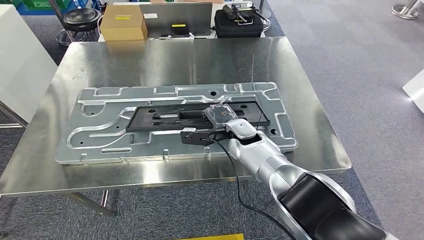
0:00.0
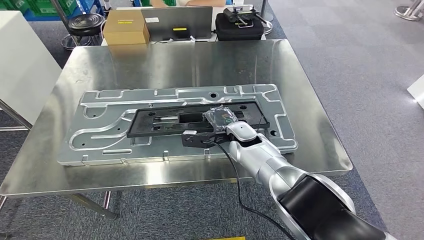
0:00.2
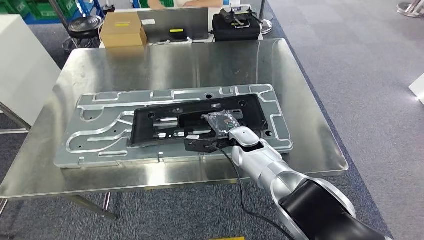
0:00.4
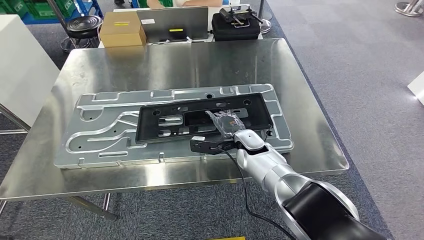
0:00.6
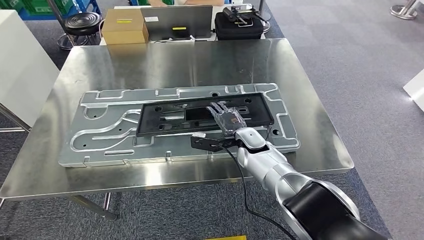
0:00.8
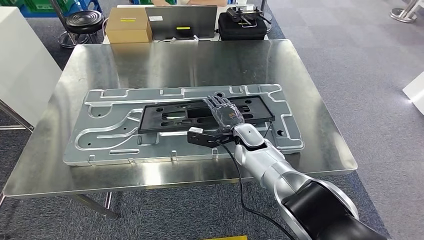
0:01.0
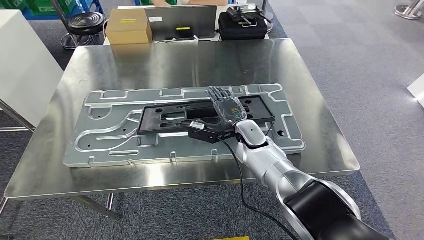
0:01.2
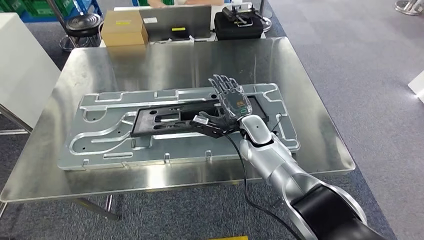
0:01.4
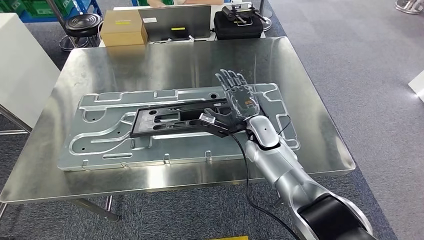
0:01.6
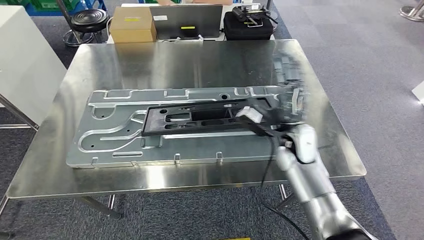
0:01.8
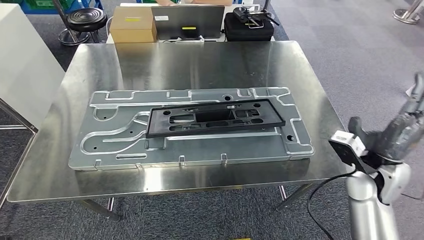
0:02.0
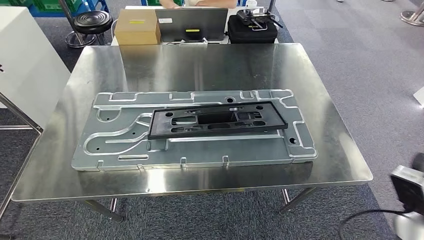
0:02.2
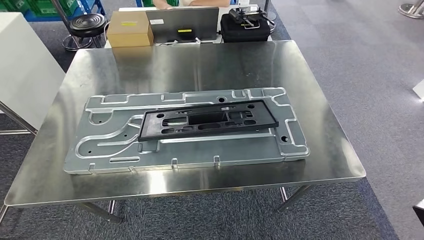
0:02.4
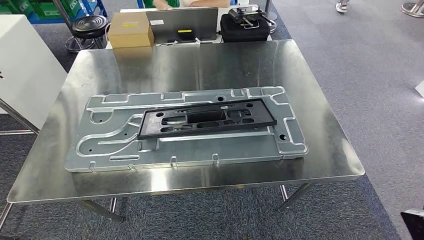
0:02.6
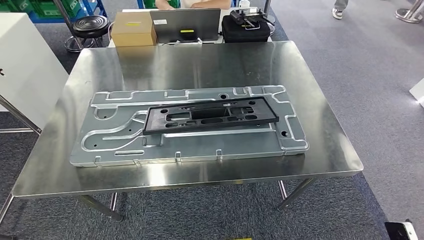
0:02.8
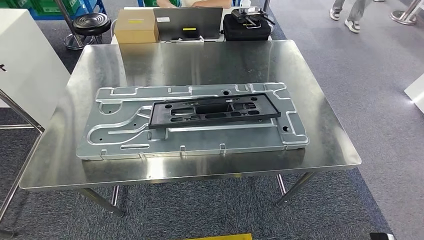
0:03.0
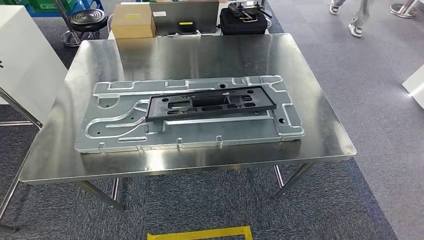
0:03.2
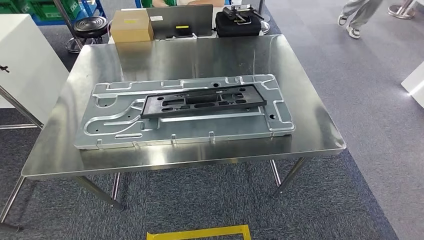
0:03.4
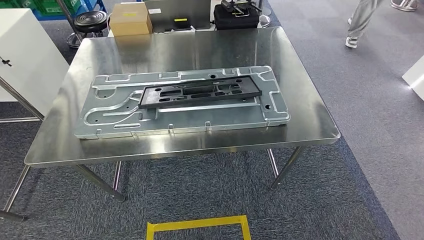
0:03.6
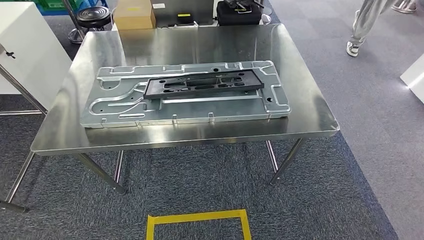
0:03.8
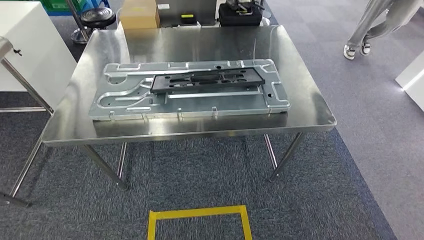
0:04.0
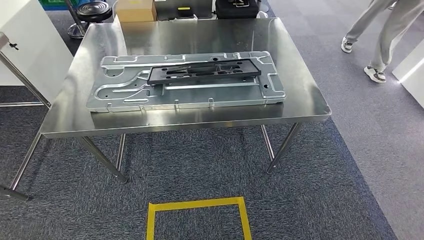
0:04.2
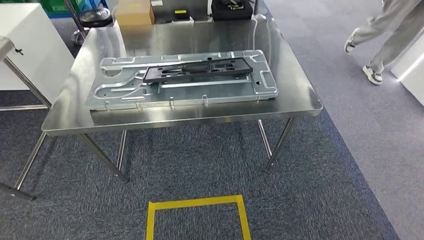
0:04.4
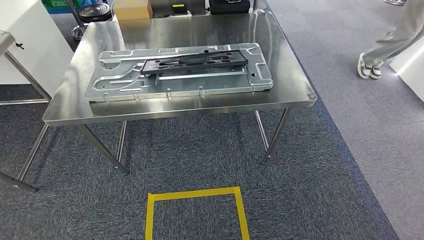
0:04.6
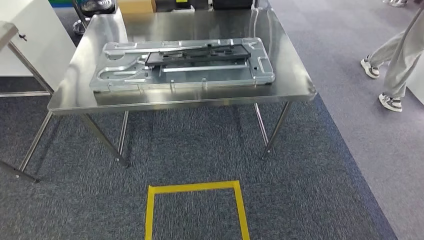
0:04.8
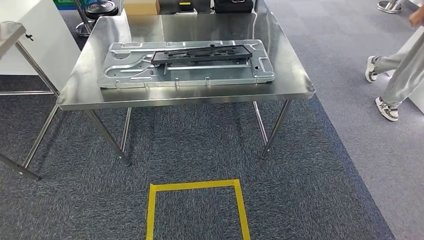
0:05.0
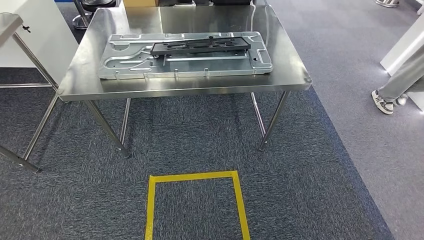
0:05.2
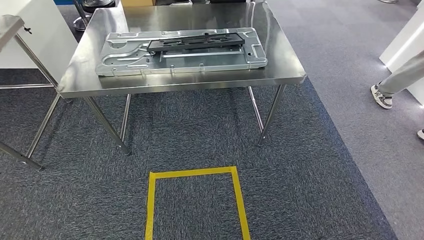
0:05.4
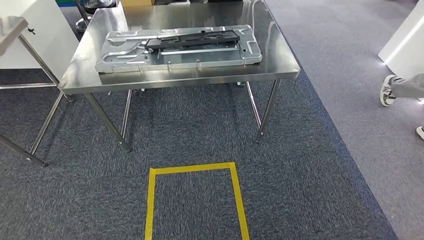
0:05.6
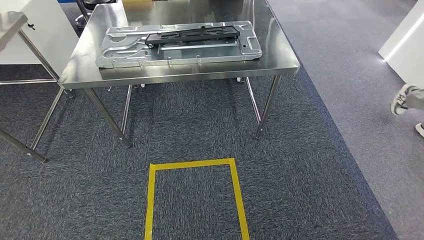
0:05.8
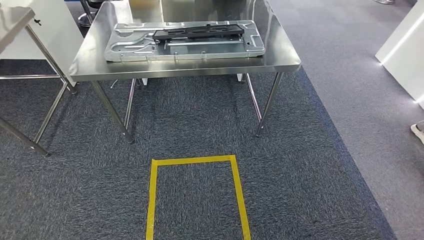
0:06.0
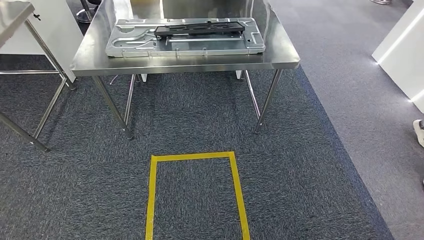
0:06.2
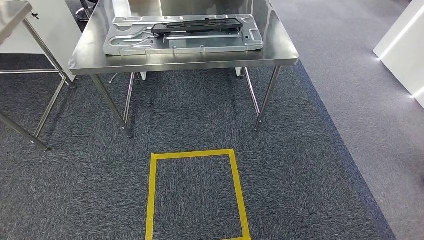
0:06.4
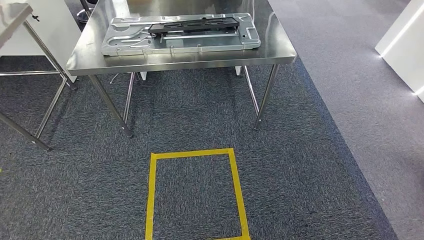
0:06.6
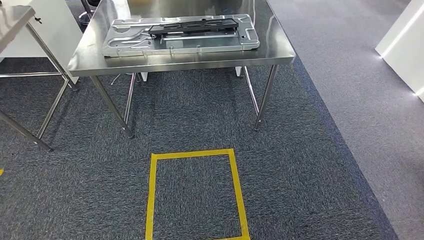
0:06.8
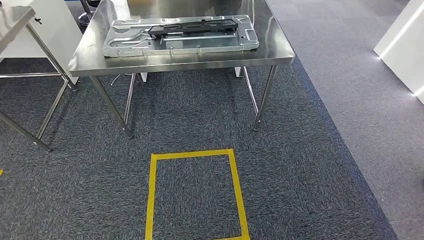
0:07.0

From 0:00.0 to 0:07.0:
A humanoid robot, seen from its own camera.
Step, from 0:00.6 to 0:03.2: Insert the large material into the corresponding slot on the workbench.
Step, from 0:04.0 to 0:07.0: Move to the initial position of the shelf.
From 0:05.6 to 0:07.0: The hands move only a little.
